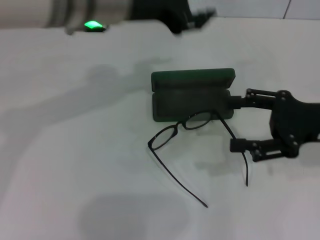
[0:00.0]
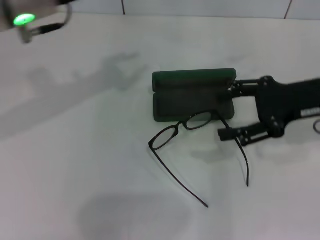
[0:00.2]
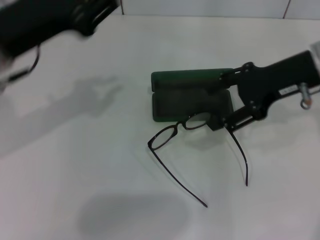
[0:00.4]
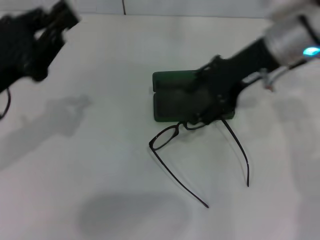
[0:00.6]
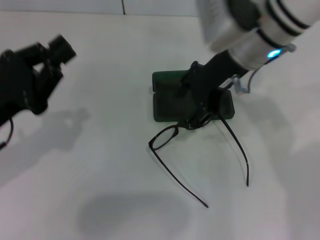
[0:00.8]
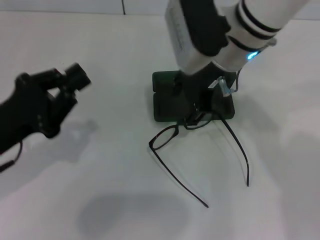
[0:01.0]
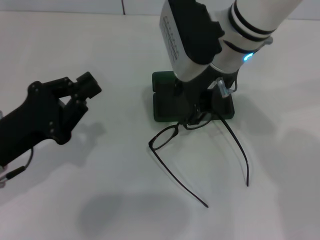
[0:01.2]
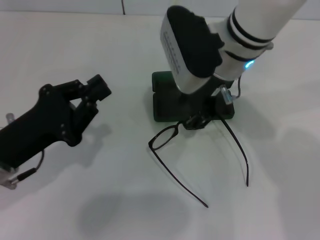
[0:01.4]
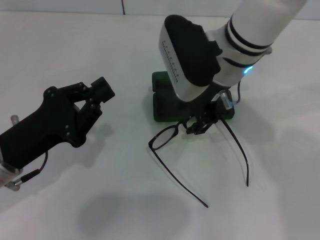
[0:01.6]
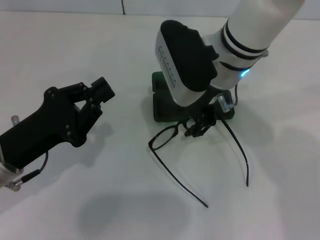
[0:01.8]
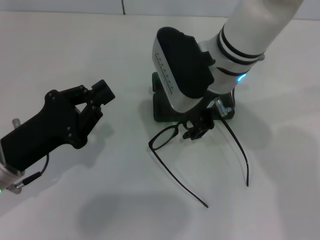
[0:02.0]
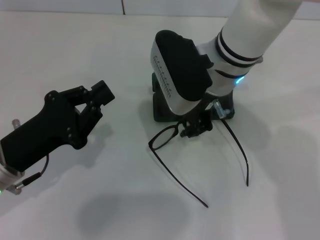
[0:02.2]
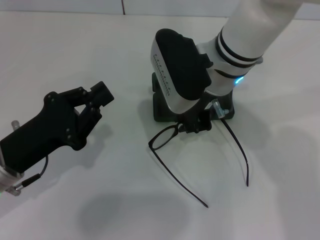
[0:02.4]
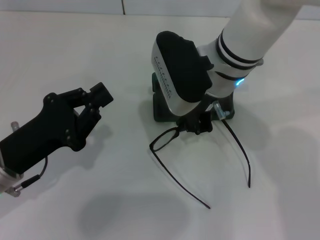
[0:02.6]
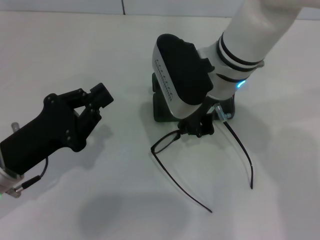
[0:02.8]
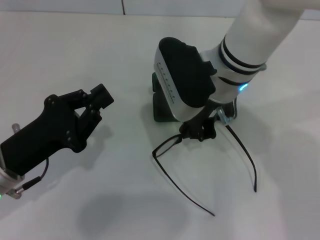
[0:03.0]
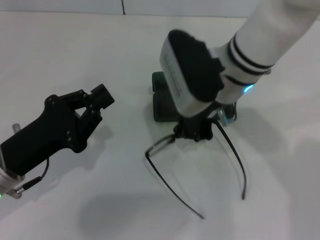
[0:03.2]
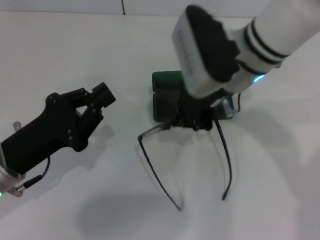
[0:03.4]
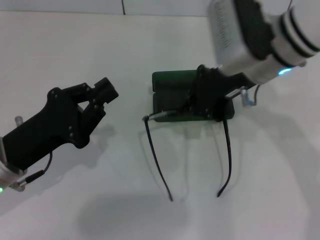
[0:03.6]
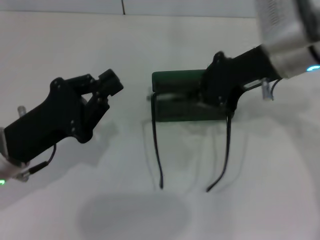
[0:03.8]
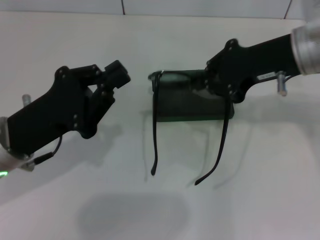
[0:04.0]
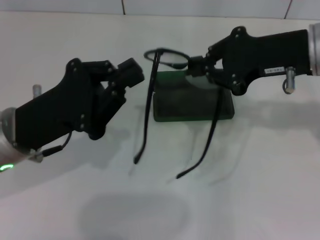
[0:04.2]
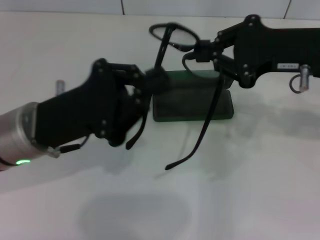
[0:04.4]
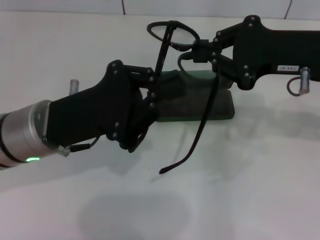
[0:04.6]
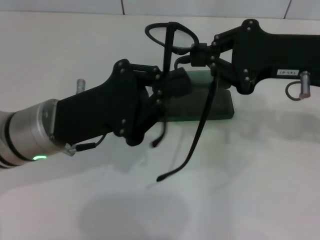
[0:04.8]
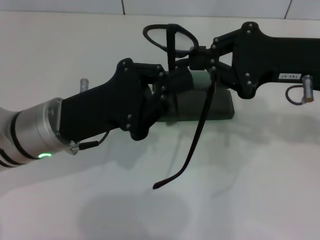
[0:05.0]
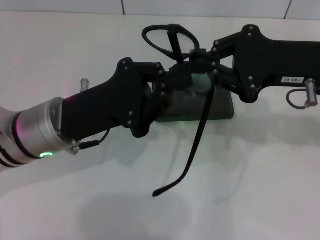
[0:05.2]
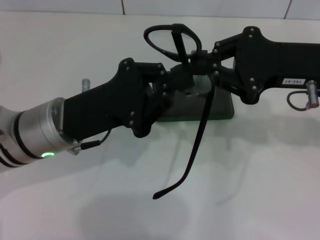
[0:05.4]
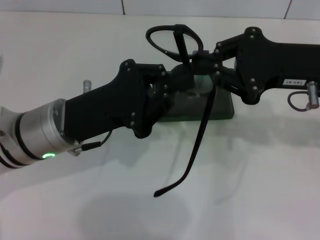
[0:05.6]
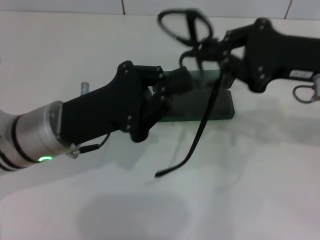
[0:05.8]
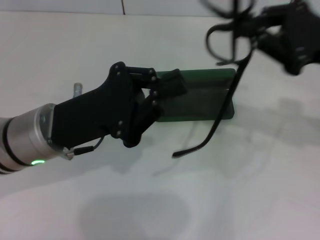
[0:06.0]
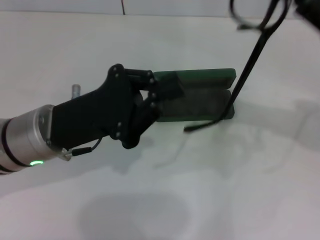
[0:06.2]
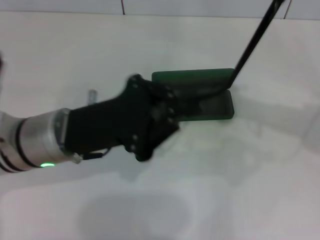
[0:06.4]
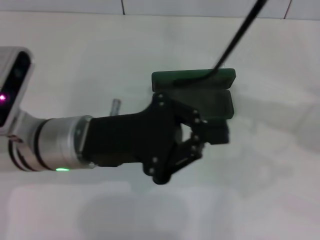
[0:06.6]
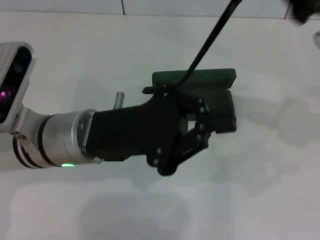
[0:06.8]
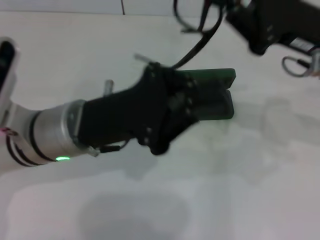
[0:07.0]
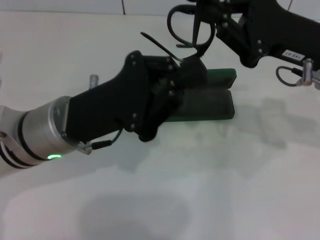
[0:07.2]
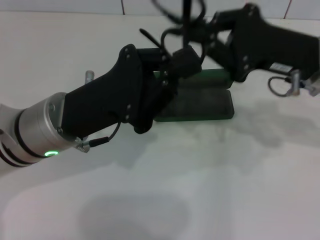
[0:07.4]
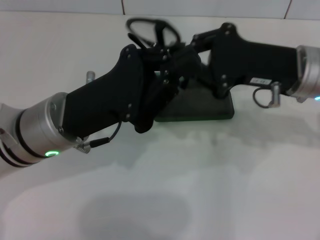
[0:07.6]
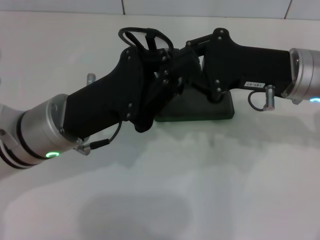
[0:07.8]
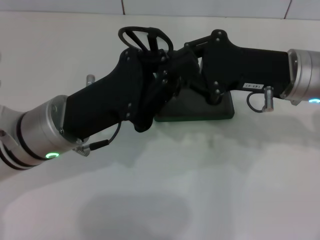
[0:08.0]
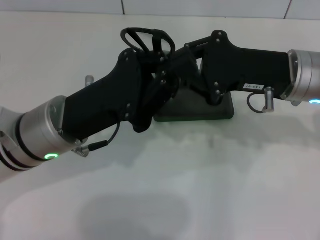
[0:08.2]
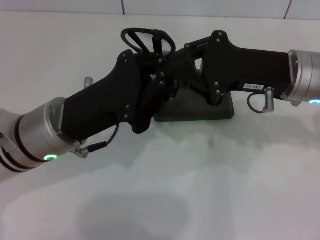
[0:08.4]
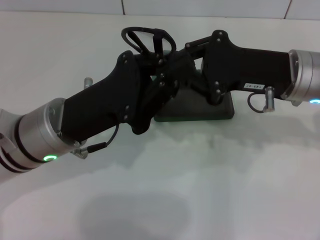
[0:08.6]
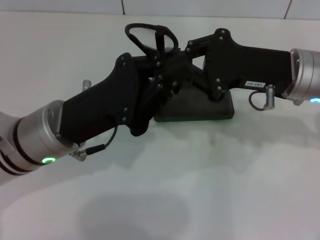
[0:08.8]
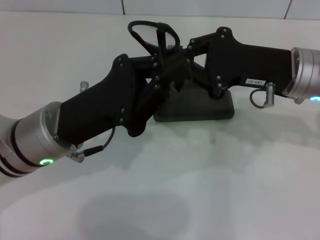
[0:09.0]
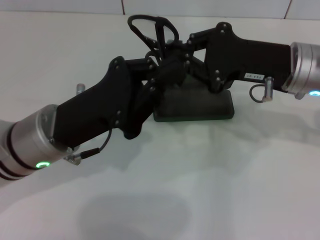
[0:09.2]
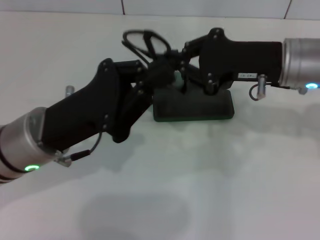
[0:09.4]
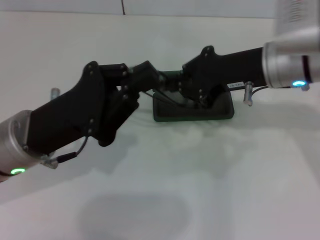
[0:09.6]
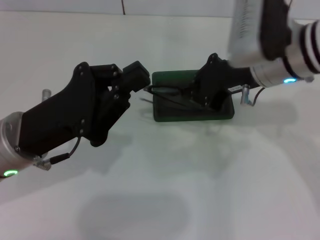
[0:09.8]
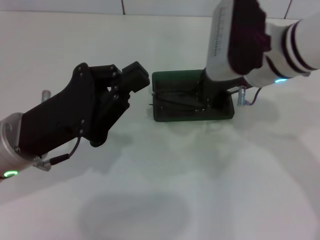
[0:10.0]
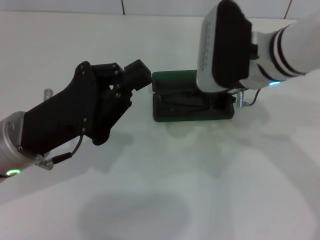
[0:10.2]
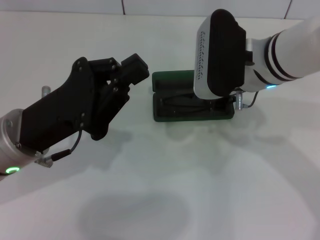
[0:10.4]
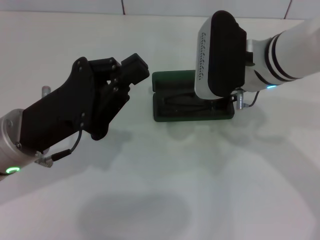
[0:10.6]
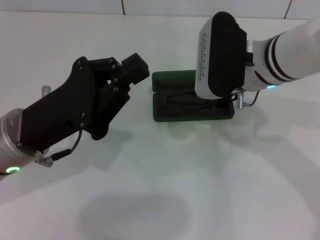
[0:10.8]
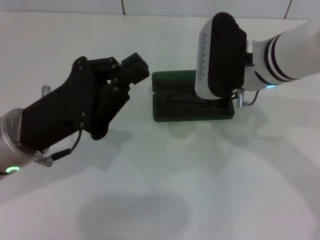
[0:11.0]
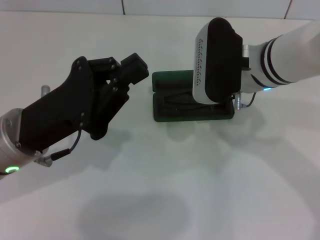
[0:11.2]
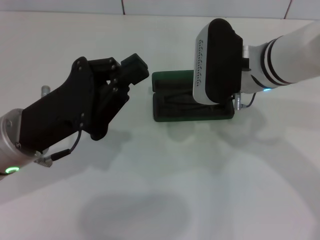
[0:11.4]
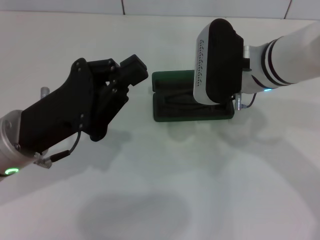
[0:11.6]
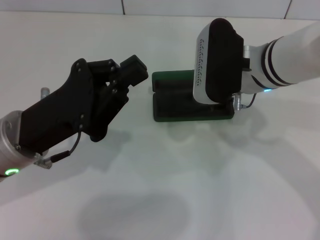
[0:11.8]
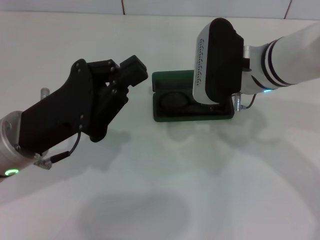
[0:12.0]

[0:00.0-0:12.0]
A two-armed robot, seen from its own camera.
Step, 0:00.0 to 0:02.6: Grab the eyeglass frame with your right hand.
Step, 0:02.8 to 0:08.8: Lift the glasses with your right hand.
Step, 0:09.0 to 0:12.0: Put the glasses into the case with your right hand.
0:00.0 to 0:01.6: The left gripper goes roughly 25 cm downward, to the left and backward, and closes. The right gripper shifts some 20 cm to the left.
0:01.6 to 0:03.0: The right gripper closes its fingers.
0:03.0 to 0:04.4: The right gripper is displaced to the right by roughly 15 cm. Meanwhile the left gripper heads to the right and upward, covering about 10 cm.
0:04.4 to 0:06.0: The grippers stay close to where they were, moving slightly.
0:06.0 to 0:07.6: The right gripper heads to the left, covering some 5 cm.
0:07.6 to 0:09.0: The grippers make only small movements.
0:09.0 to 0:10.4: The right gripper shifts approximately 10 cm to the left.
0:10.4 to 0:12.0: Both grippers stay about where they are.

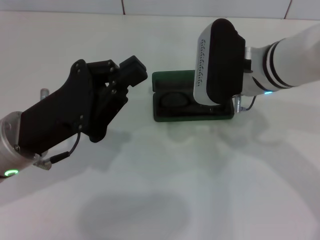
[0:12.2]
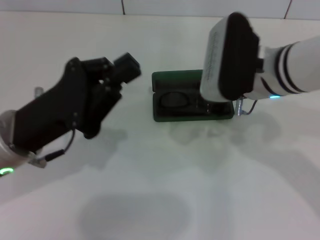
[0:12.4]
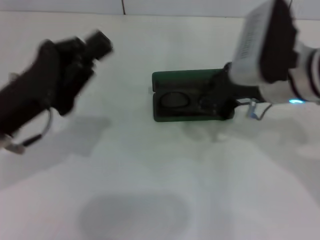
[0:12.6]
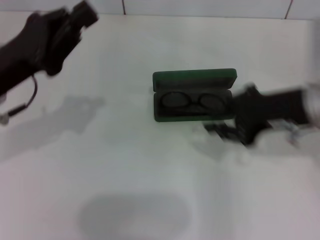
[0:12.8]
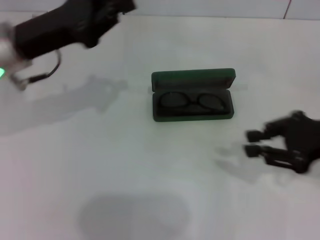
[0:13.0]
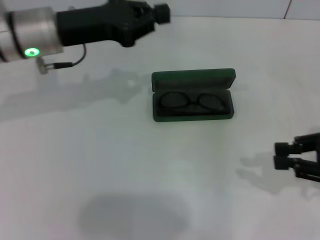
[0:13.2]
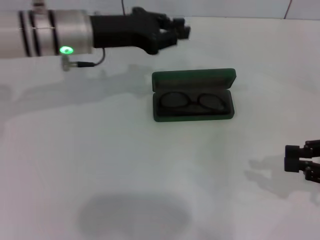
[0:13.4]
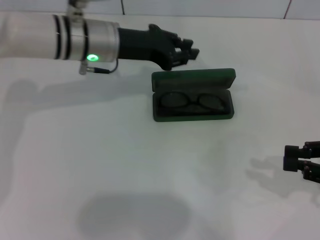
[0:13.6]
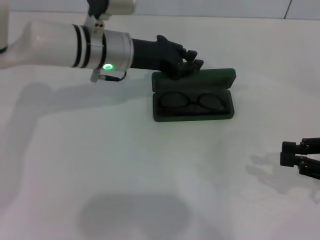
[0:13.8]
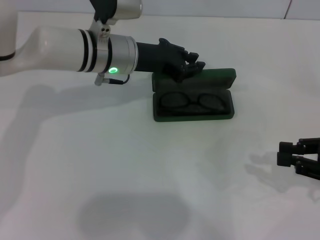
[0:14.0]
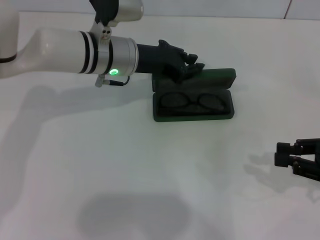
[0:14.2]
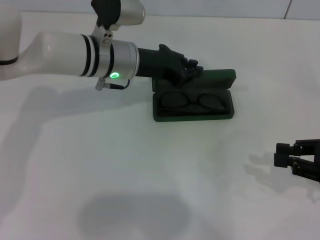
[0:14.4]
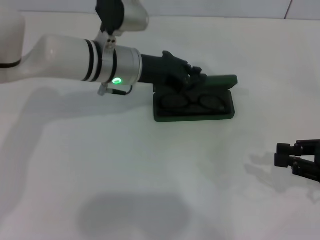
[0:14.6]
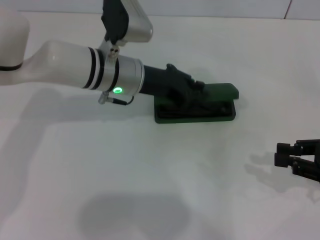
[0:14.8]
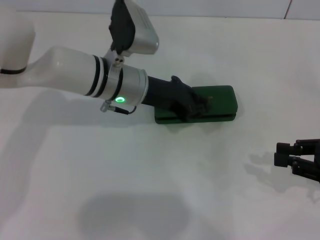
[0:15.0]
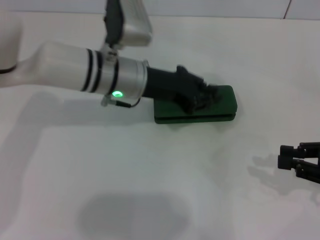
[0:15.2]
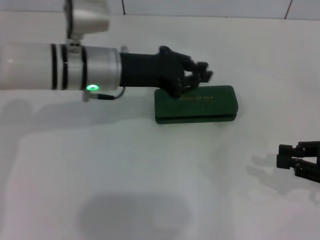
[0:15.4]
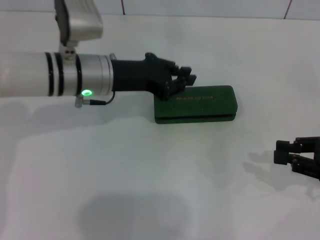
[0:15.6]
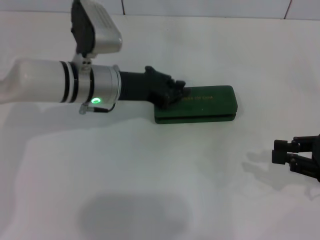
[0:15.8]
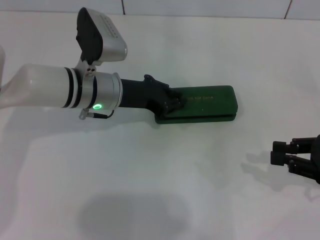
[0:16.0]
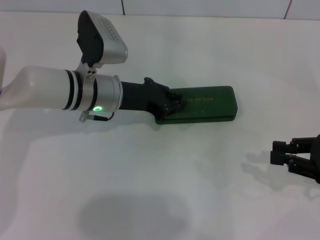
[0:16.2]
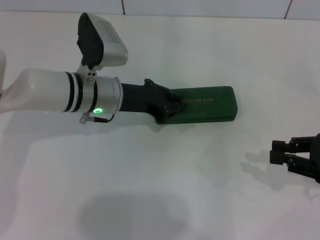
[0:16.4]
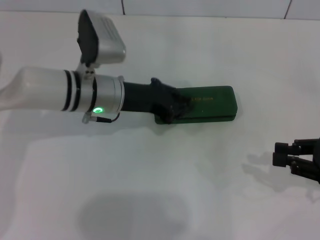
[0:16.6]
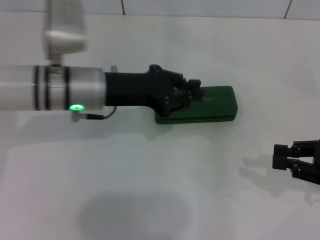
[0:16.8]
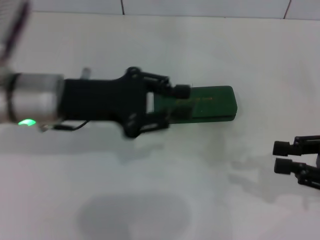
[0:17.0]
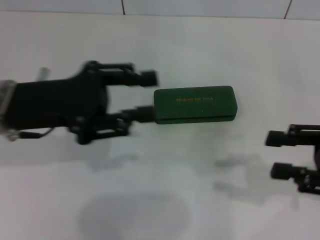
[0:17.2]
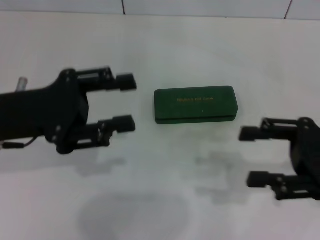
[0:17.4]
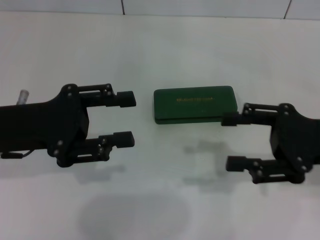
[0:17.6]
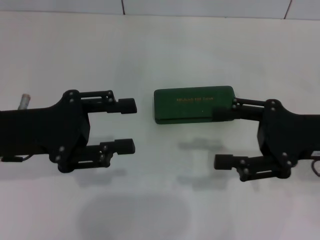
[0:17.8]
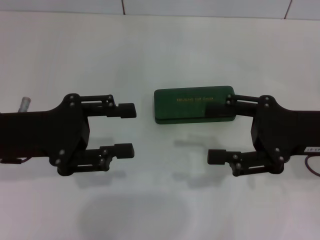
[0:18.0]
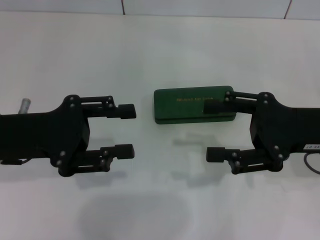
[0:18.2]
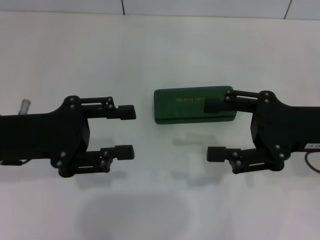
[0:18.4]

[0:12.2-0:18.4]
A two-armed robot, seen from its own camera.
Step, 0:12.2 to 0:16.6: Close the glasses case with your left hand.
0:12.2 to 0:13.8: The left gripper shifts roughly 20 cm forward and to the right, while the right gripper goes about 25 cm to the right and backward.
0:13.8 to 0:15.4: The left gripper changes place by approximately 5 cm.
0:15.4 to 0:16.8: There are only small adjustments of the grippers.
0:16.8 to 0:18.4: The left gripper goes approximately 15 cm to the left and backward, and opens; the right gripper goes some 10 cm to the left and upward, and opens up.

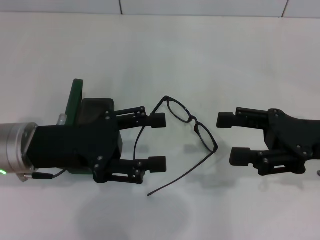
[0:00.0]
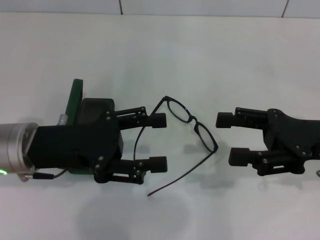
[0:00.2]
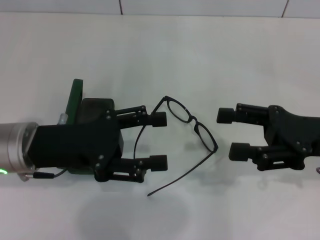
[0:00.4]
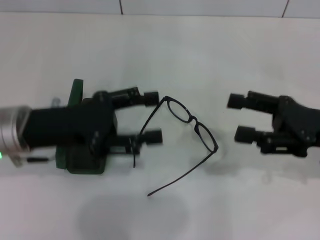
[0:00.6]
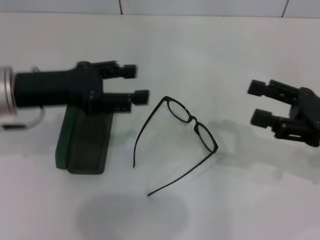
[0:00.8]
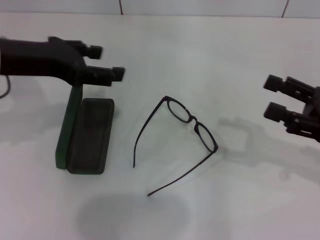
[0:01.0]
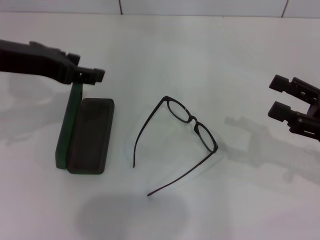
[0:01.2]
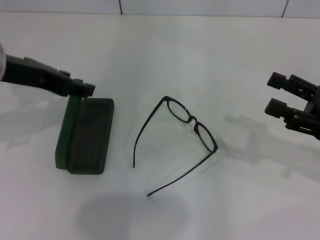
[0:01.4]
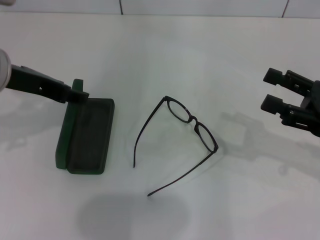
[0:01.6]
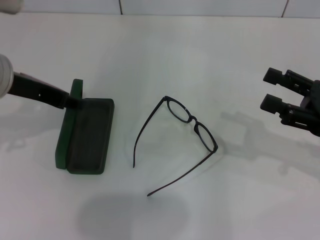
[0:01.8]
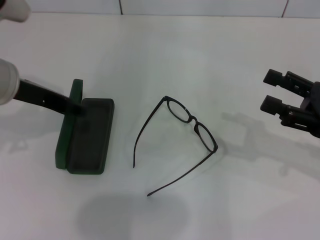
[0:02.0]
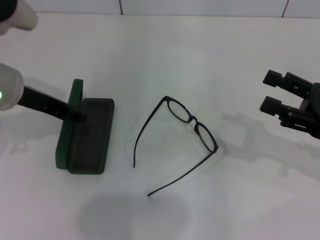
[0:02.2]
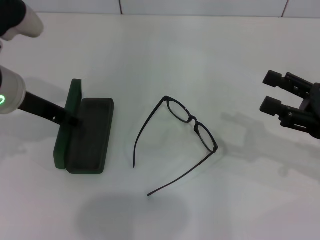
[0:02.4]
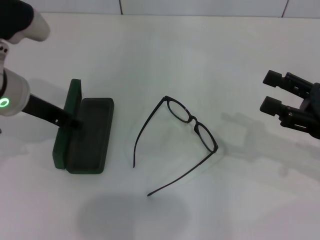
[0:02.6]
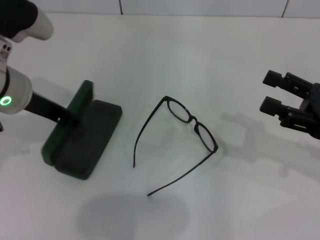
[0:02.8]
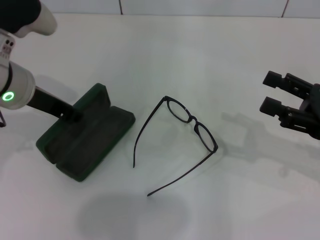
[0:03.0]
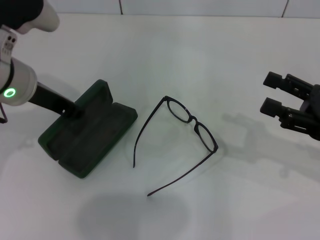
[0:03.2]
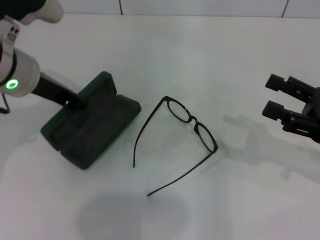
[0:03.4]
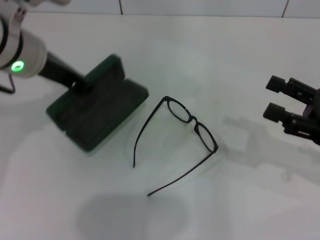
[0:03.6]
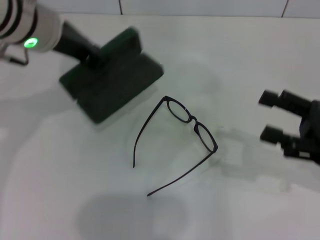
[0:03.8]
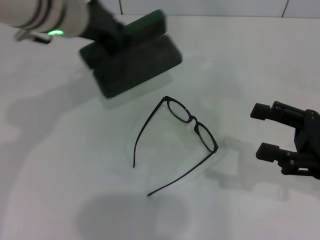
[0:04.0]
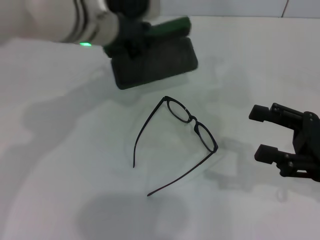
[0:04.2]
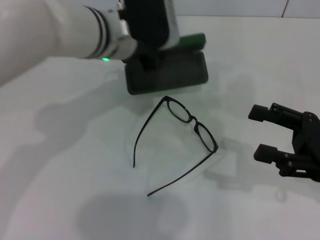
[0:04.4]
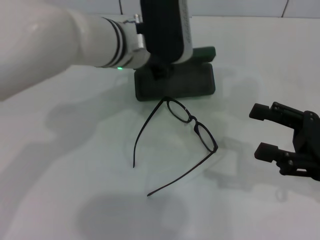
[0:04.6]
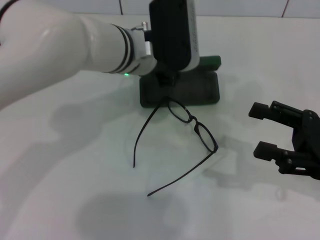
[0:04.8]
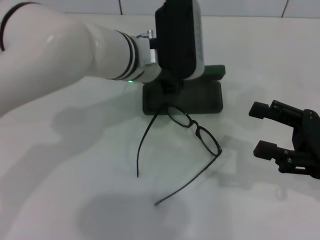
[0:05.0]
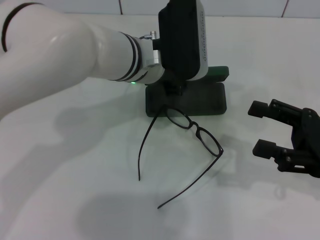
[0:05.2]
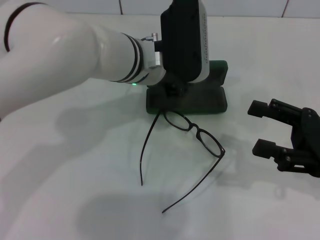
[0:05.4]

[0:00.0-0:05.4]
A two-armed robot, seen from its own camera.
Step, 0:00.0 to 0:02.6: Grab the glasses case with your left hand.
0:00.0 to 0:01.4: The left gripper shifts about 10 cm upward and forward, while the right gripper changes place by about 5 cm.
0:01.4 to 0:02.8: The left gripper ends up approximately 5 cm from where it was.
0:02.8 to 0:04.0: The left gripper goes some 10 cm to the right and upward, and closes its fingers.
0:04.0 to 0:05.4: The left gripper shifts roughly 10 cm to the right and downward.
